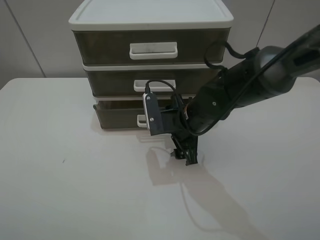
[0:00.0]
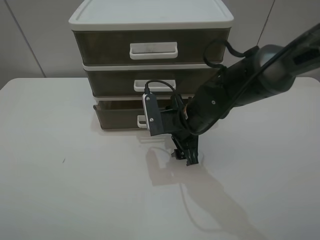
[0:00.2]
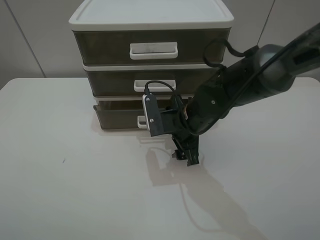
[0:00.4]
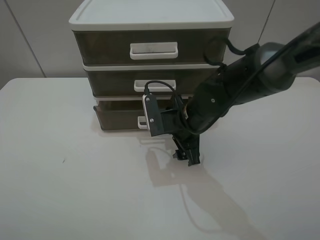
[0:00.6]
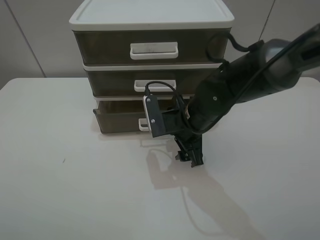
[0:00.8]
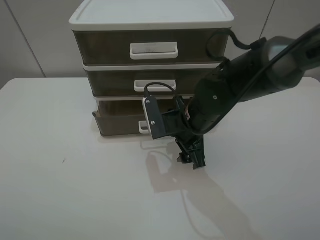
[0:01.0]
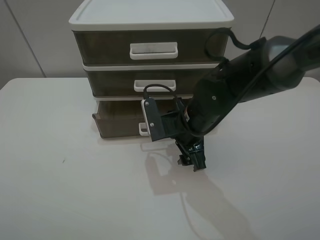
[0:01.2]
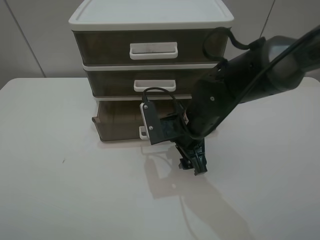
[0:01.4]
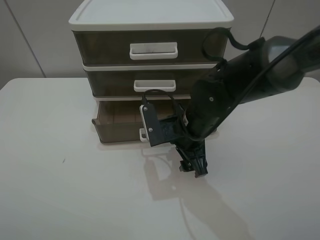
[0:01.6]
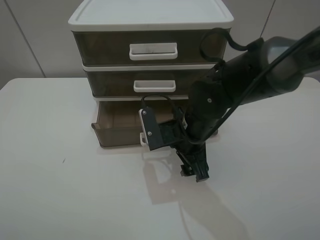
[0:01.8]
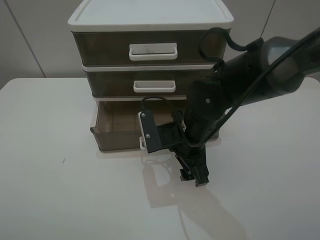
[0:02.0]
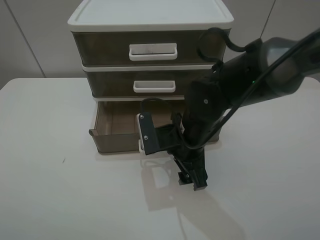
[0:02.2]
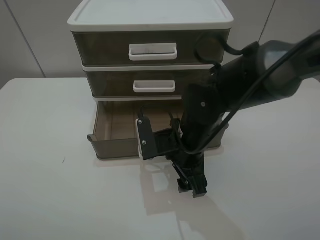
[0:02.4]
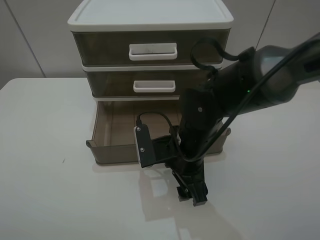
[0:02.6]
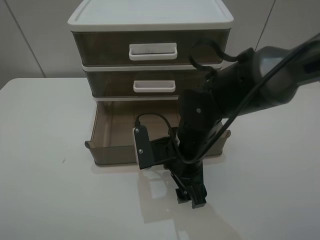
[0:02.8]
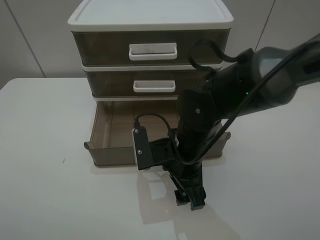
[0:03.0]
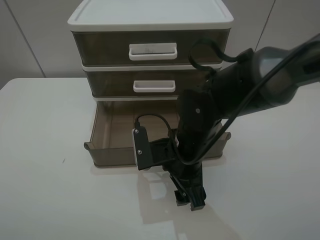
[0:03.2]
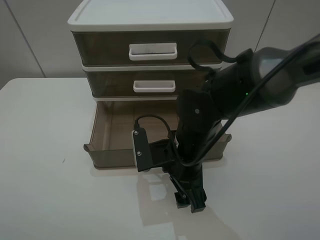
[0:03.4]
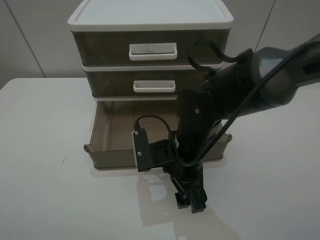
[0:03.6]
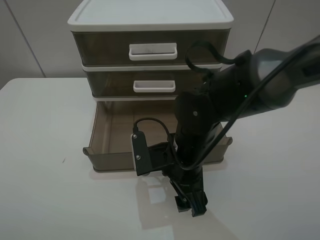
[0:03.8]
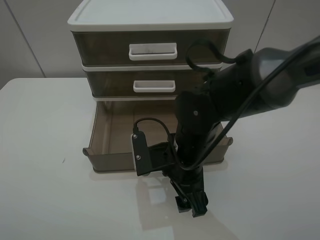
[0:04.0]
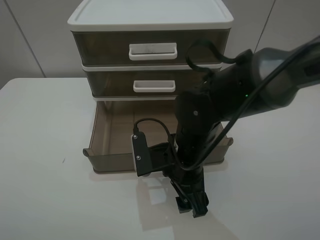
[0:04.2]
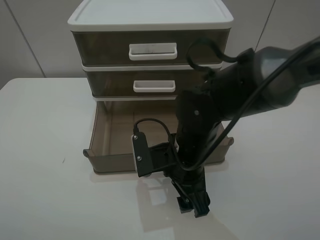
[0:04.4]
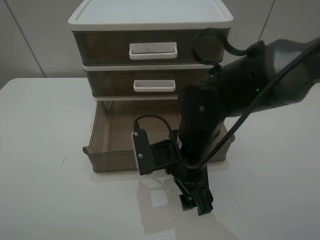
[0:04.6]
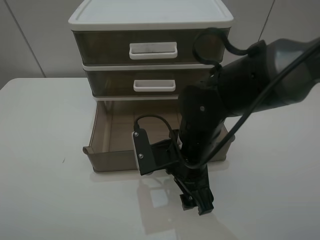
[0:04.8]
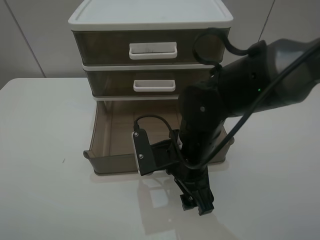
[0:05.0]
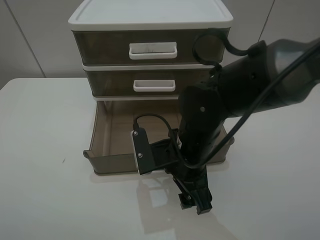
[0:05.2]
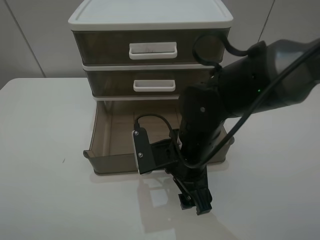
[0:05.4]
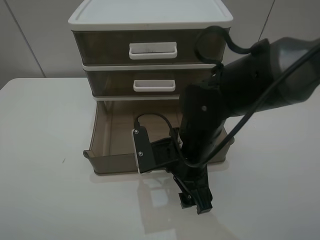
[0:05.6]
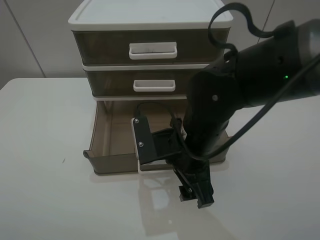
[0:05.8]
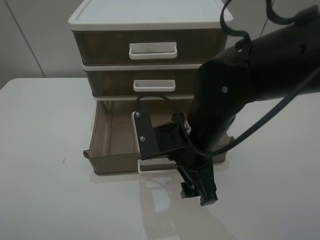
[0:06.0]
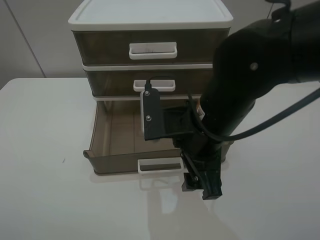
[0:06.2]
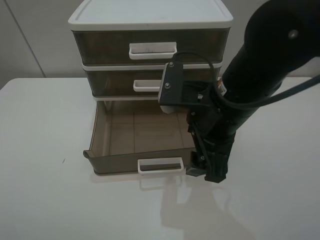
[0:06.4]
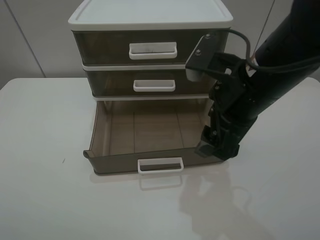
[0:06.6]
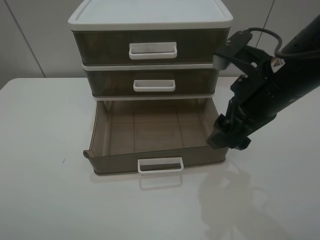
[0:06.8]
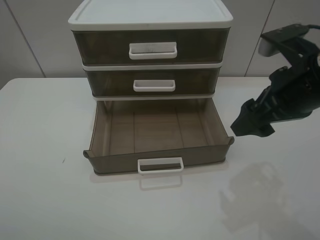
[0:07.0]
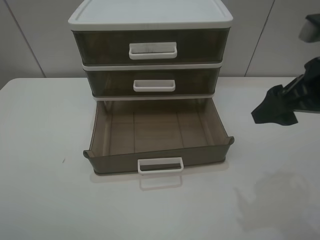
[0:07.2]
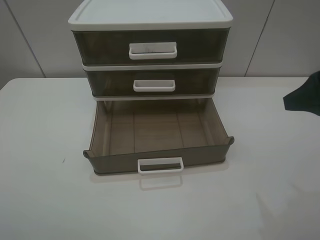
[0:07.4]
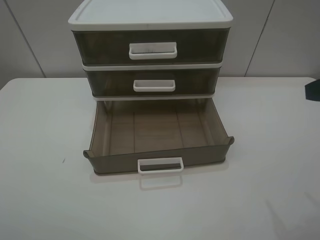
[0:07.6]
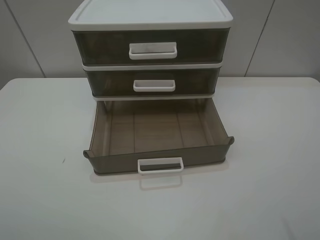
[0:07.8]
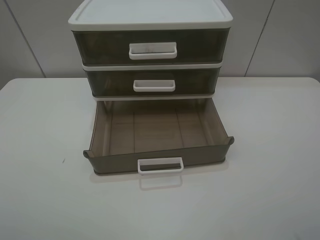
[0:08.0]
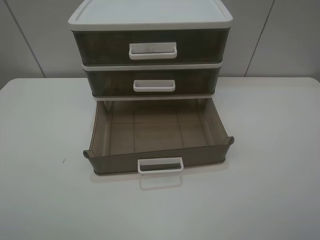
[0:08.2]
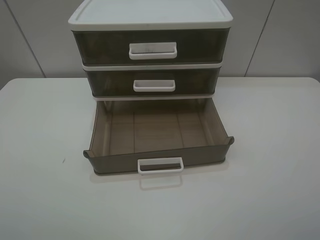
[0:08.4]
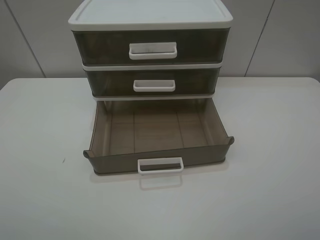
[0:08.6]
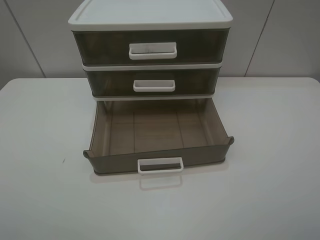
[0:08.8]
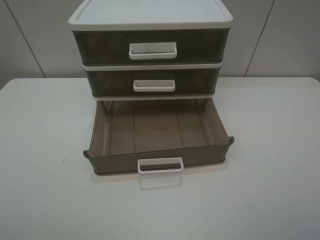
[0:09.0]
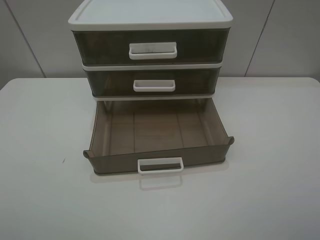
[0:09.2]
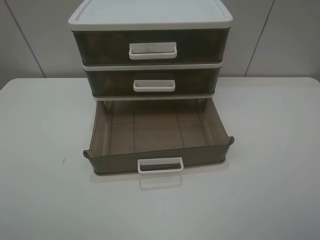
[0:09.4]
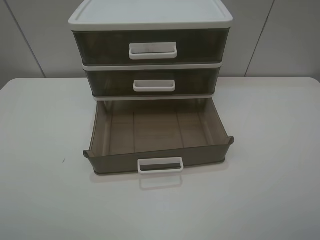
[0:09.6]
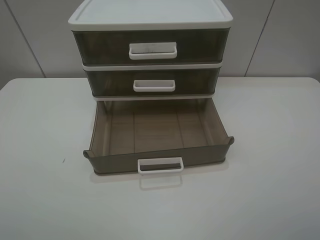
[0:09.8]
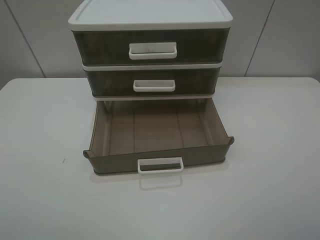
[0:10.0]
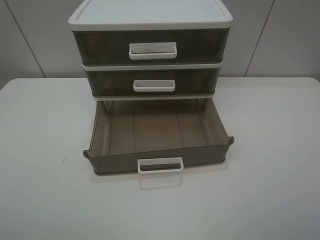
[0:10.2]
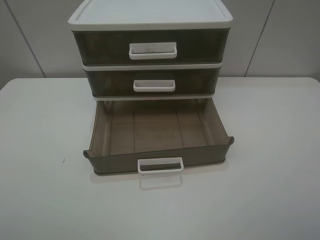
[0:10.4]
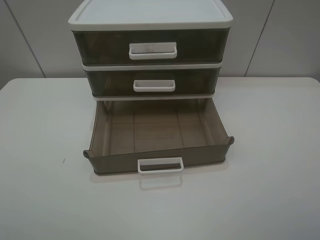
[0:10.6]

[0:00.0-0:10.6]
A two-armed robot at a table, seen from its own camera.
Task of the whole recording: open the bottom drawer.
Step, 0:00.0 to 0:06.4: Pull open the drawer with the right gripper.
0:00.0 to 0:01.6: There are only small adjustments of the grippers.
0:01.6 to 0:04.6: There are only small adjustments of the grippers.
0:04.6 to 0:06.0: The grippers move only a little.
0:06.0 to 0:07.6: The right gripper heads to the right and upward, covering approximately 25 cm.
